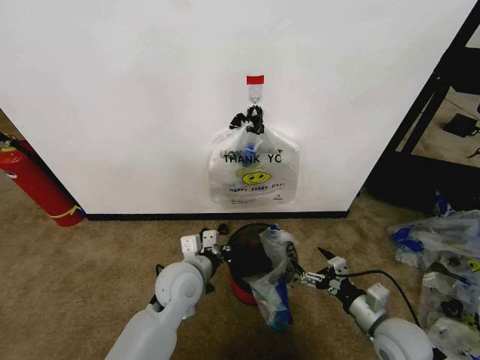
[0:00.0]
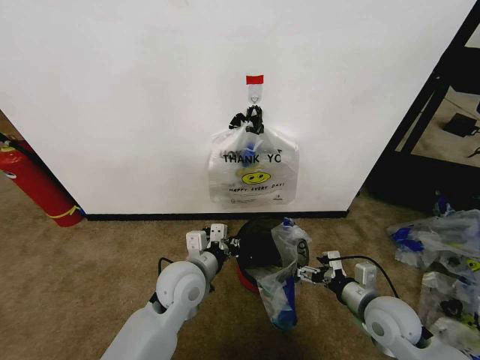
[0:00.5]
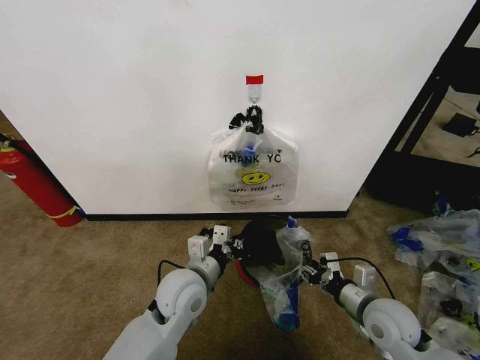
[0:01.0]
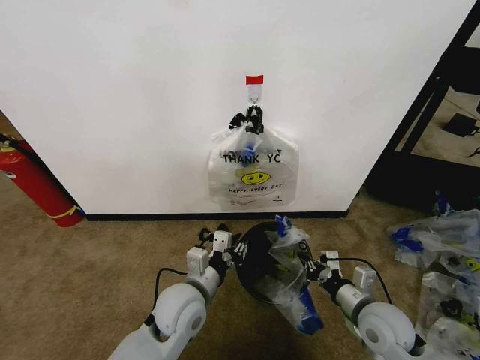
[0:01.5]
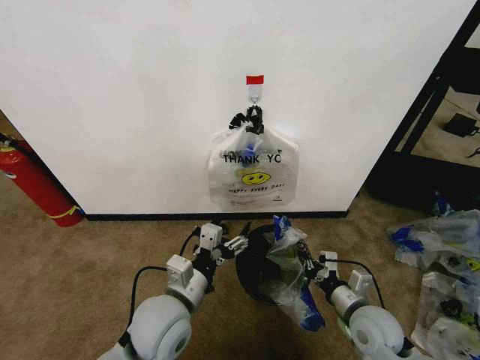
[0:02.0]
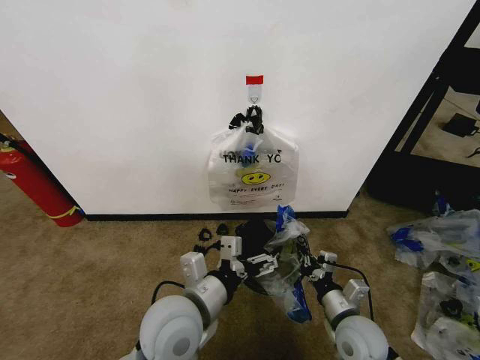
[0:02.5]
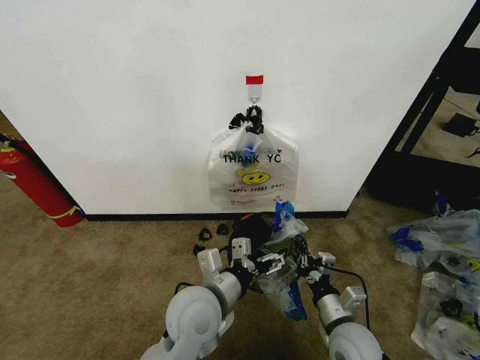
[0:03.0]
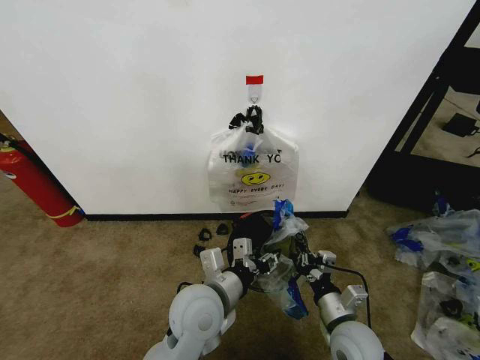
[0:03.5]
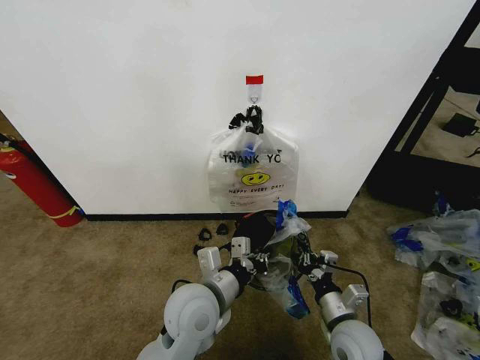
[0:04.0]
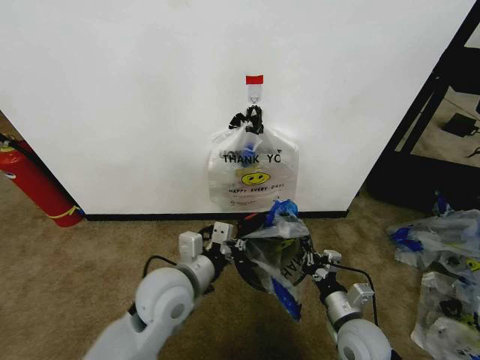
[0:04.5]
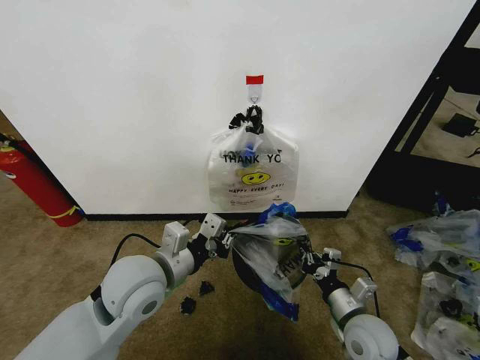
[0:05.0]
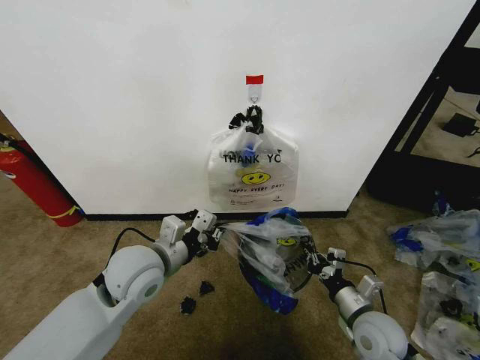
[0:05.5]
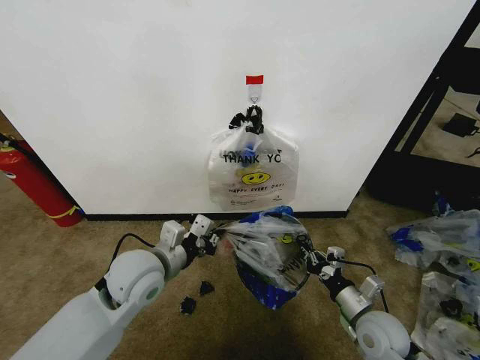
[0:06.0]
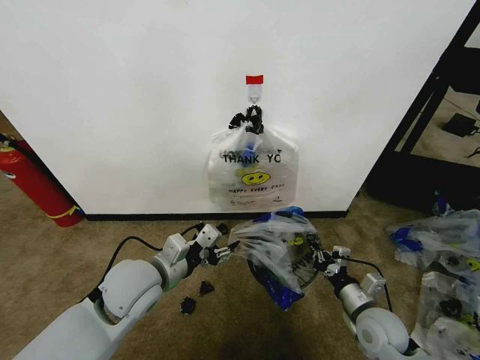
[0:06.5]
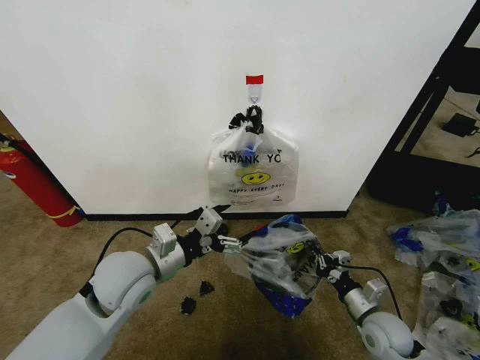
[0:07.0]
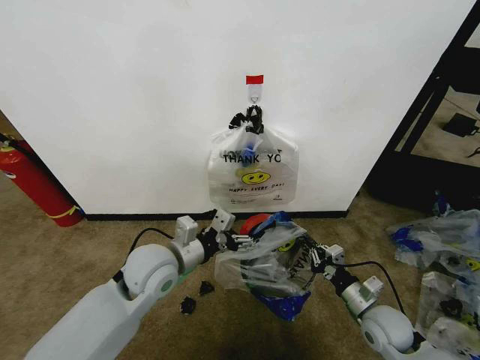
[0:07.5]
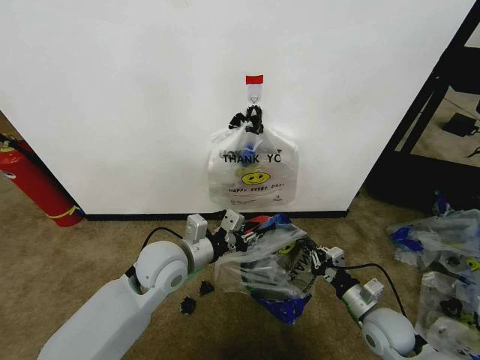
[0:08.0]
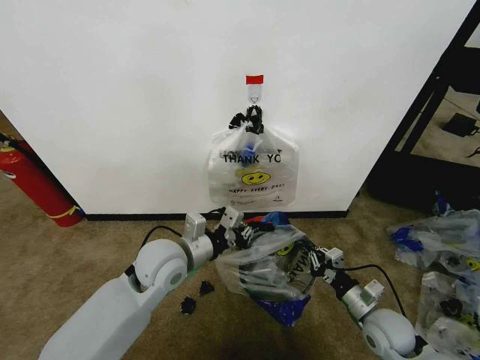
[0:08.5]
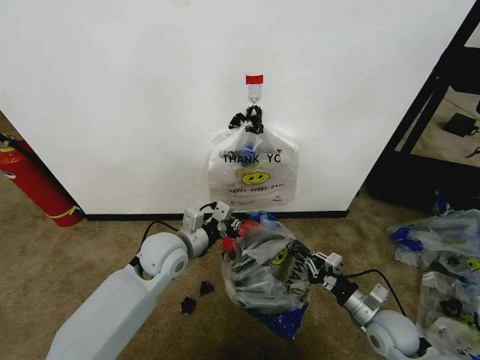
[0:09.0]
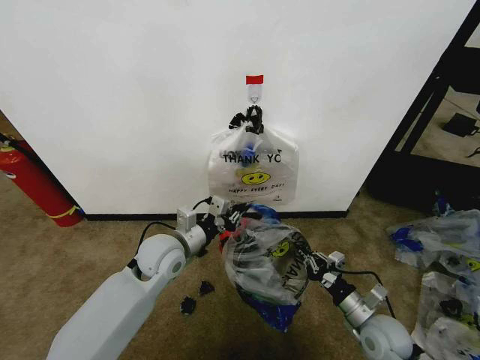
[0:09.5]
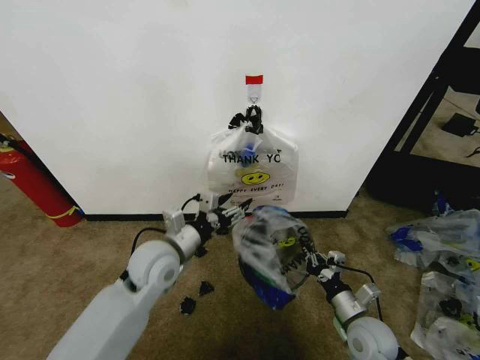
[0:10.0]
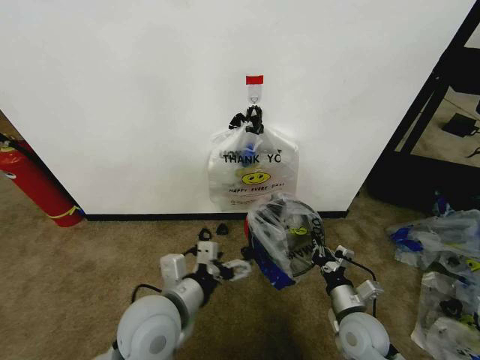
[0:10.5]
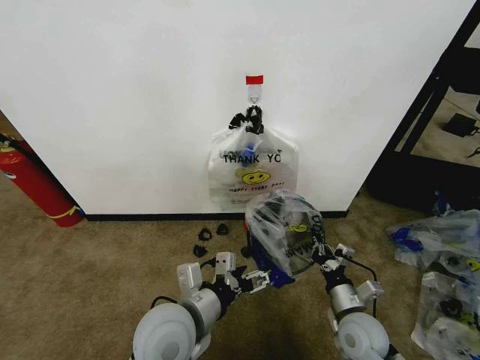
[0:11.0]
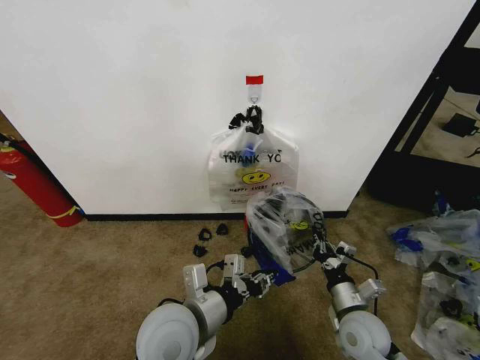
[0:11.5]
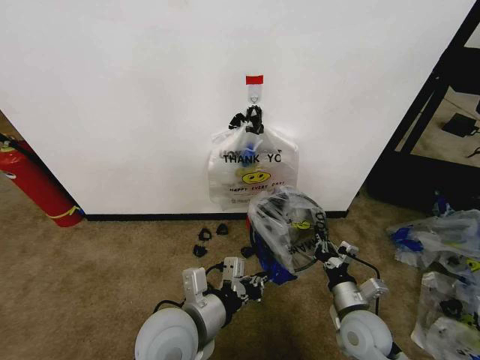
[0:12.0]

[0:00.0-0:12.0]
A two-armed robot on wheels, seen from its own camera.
Task of the whole recording: Pick up the garbage bag from the wall and place it over the trash bin.
0:00.0 to 0:02.0: The left gripper shifts roughly 10 cm backward, and opens its fingers. The right gripper closes up.
0:02.0 to 0:04.0: The left gripper shifts roughly 5 cm to the right, and closes its fingers. Meanwhile the right gripper shifts by some 5 cm.
0:04.0 to 0:06.0: The left gripper heads to the left and forward, covering some 10 cm. The right gripper heads to the right, covering approximately 5 cm.
0:06.0 to 0:08.0: The left gripper opens and closes again.
0:08.0 to 0:10.0: The left gripper opens up.
0:10.0 to 0:12.0: The left gripper goes roughly 15 cm backward and to the right, and closes up.

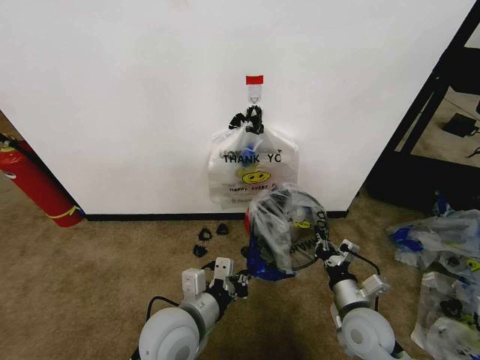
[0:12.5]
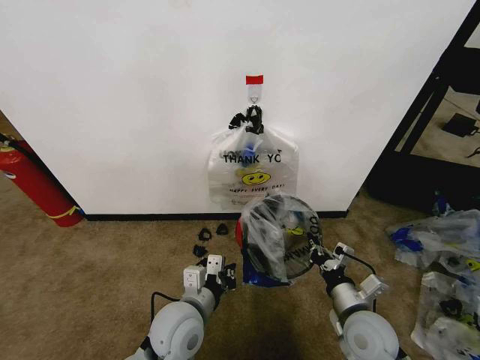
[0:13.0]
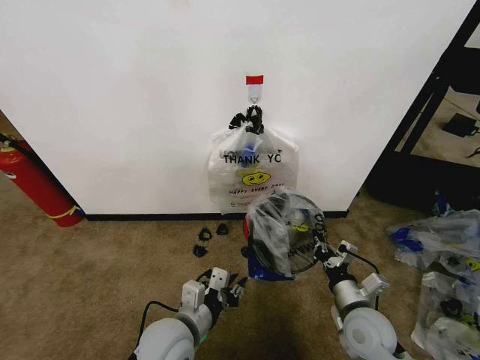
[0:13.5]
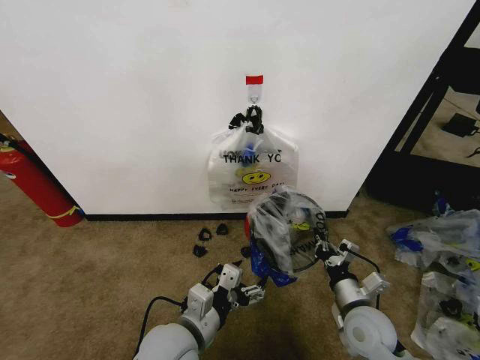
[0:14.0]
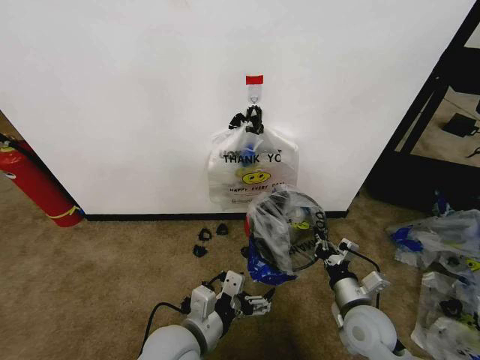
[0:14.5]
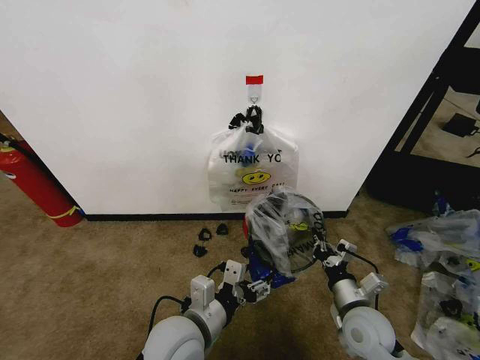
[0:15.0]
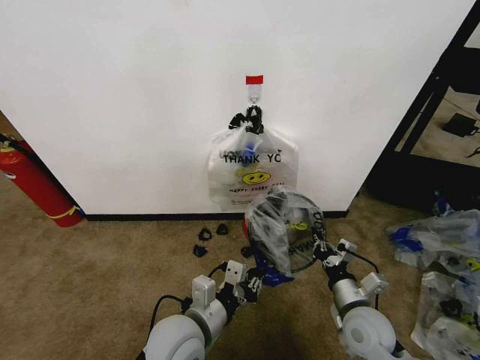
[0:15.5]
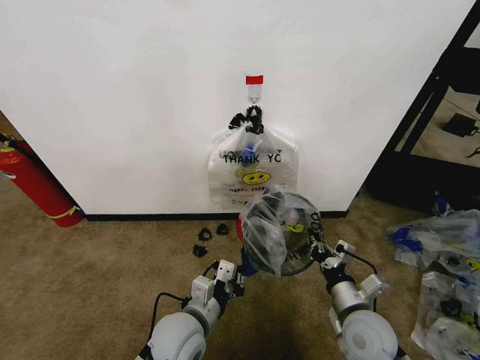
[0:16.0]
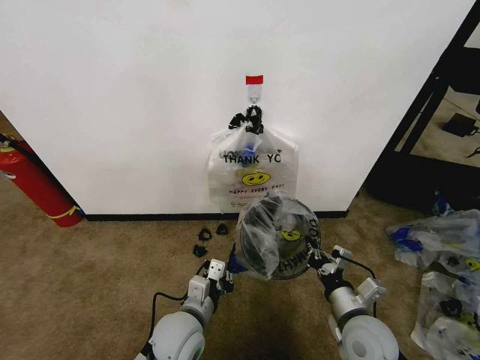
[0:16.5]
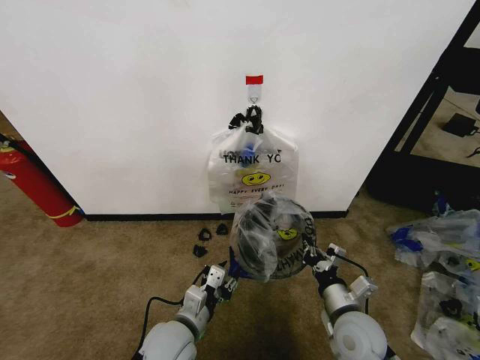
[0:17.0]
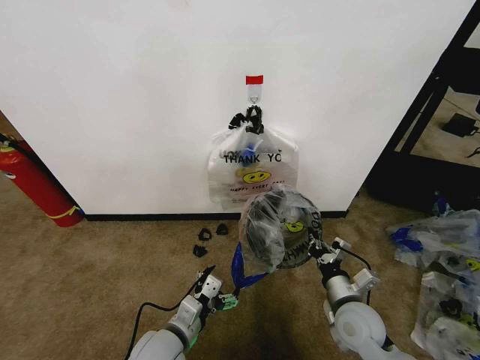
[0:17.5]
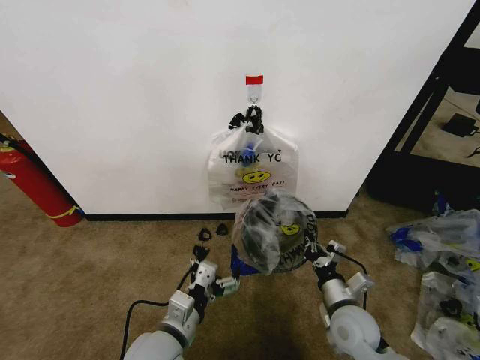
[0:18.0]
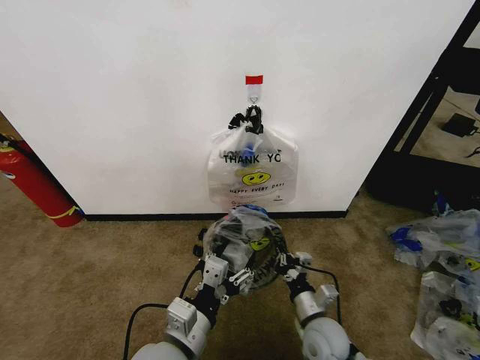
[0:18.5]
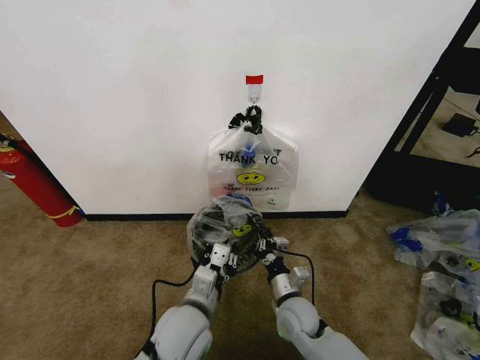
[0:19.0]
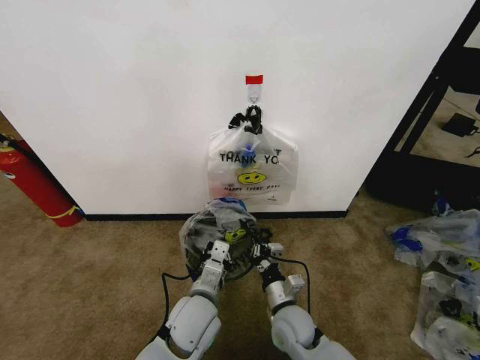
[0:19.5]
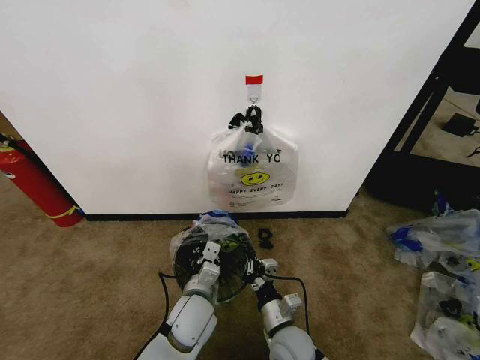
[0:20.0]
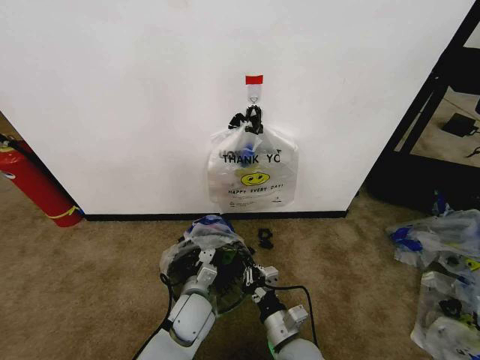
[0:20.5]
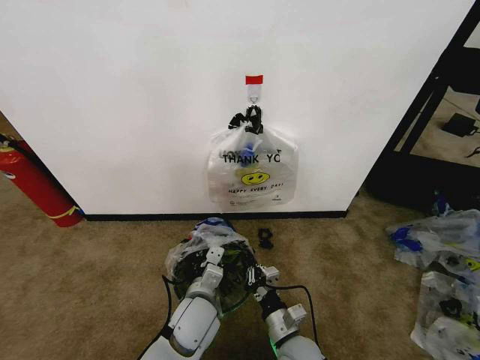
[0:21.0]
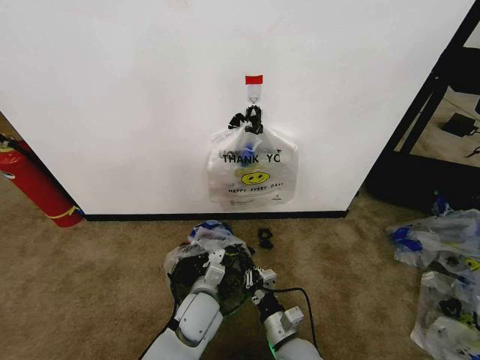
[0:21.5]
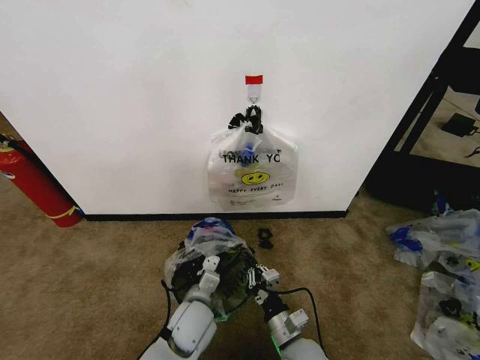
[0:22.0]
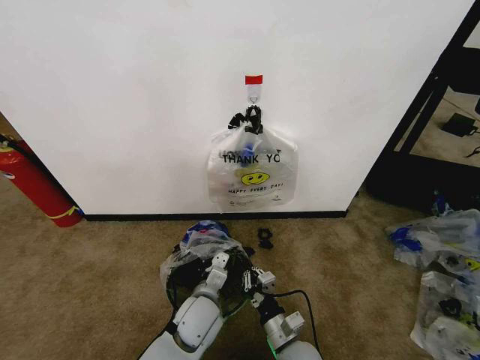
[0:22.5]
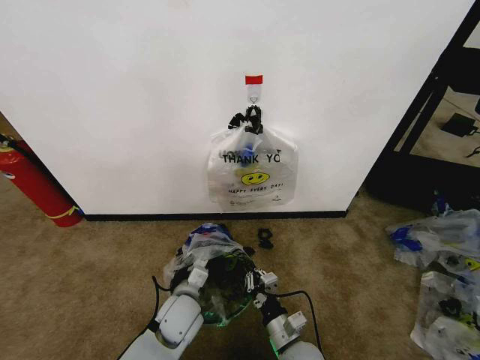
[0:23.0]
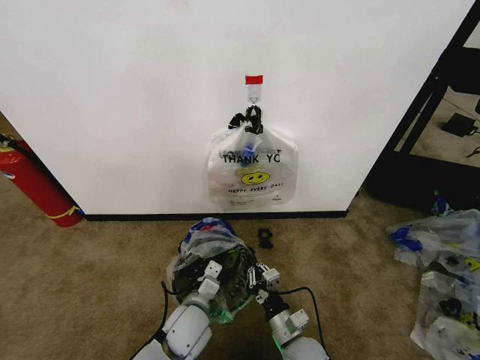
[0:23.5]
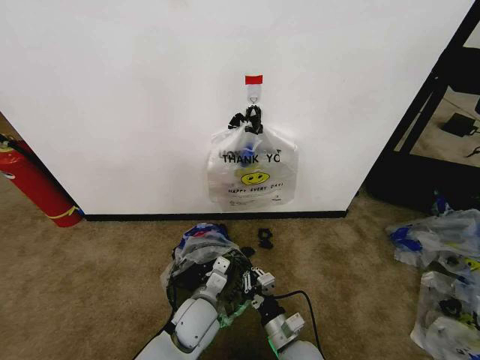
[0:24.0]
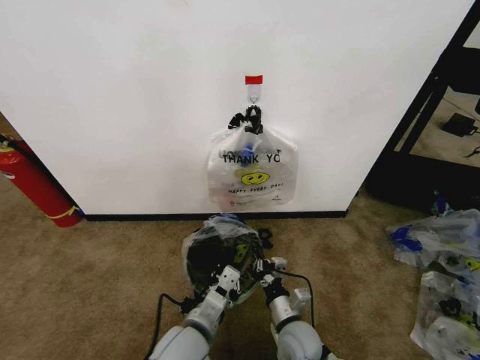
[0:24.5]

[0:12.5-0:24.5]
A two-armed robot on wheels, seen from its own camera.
Task of the whole recording: Pick up the garbage bag from the wall and place it over the trash bin.
0:12.5 to 0:14.5: The left gripper opens.
0:14.5 to 0:16.5: The left gripper goes approximately 5 cm downward, and closes up.
0:16.5 to 0:18.5: The left gripper heads upward and backward, covering about 10 cm, and opens. Meanwhile the right gripper is displaced downward and to the left by some 10 cm.
0:18.5 to 0:20.5: The left gripper shifts some 20 cm forward and downward, and closes, while the right gripper is displaced to the left by some 5 cm.
0:20.5 to 0:22.5: The grippers stay close to where they were, moving slightly.
0:22.5 to 0:24.5: The left gripper moves backward and upward, some 10 cm.

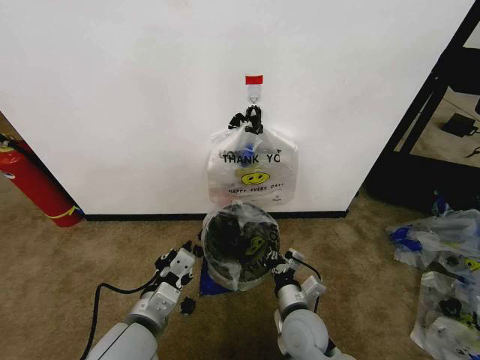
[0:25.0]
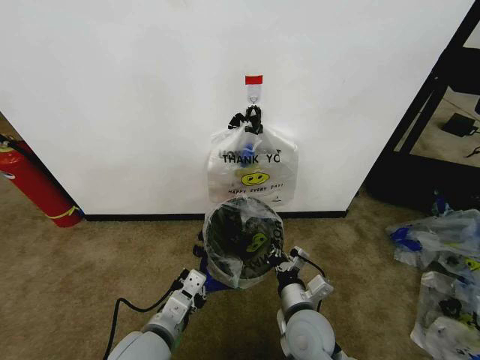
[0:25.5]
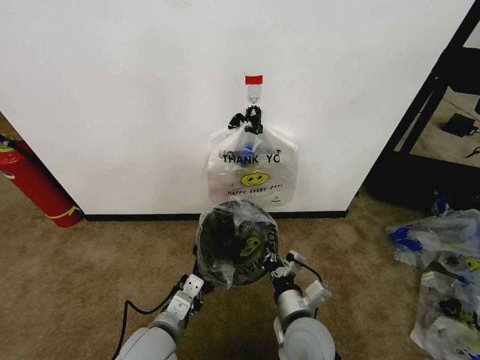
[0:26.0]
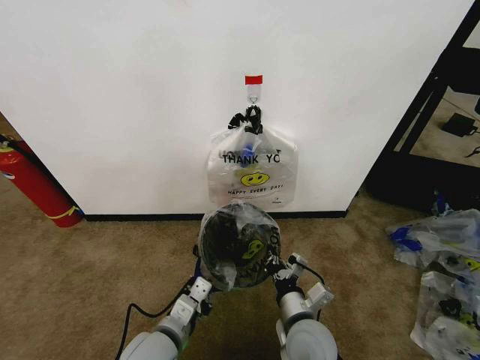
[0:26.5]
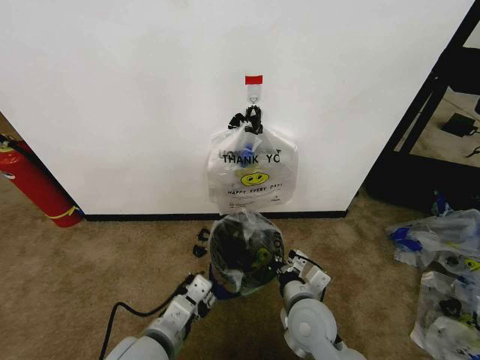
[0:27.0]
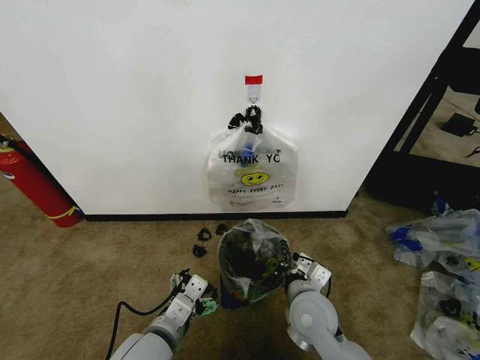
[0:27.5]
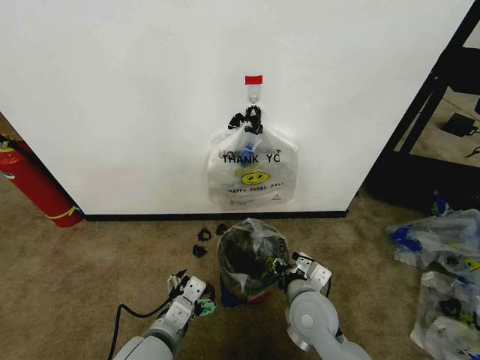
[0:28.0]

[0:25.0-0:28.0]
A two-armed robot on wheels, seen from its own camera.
Task of the whole recording: Pick up the garbage bag from the wall and place it over the trash bin.
0:25.0 to 0:26.5: The left gripper heads downward, covering approximately 5 cm.
0:26.5 to 0:28.0: The right gripper moves about 5 cm, and opens. The left gripper opens.
